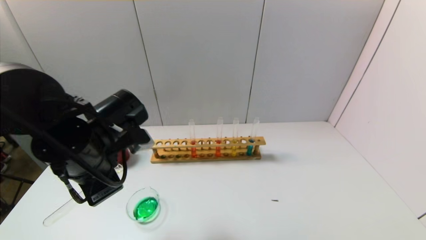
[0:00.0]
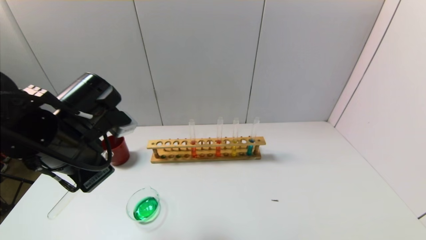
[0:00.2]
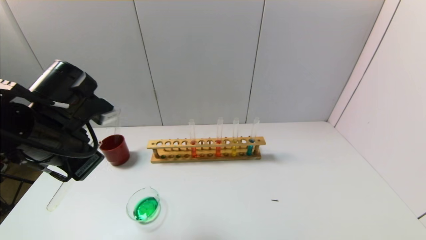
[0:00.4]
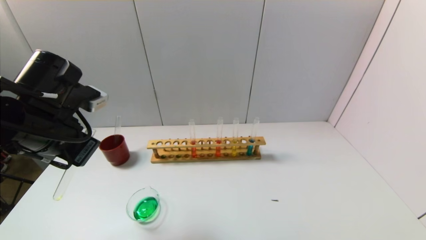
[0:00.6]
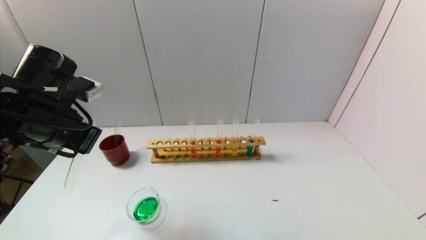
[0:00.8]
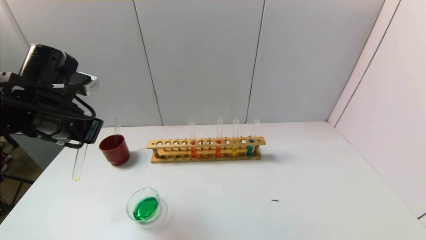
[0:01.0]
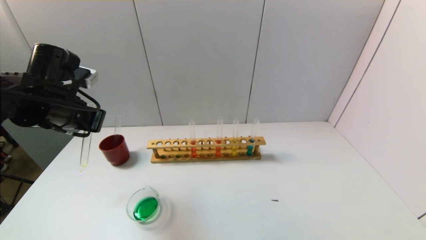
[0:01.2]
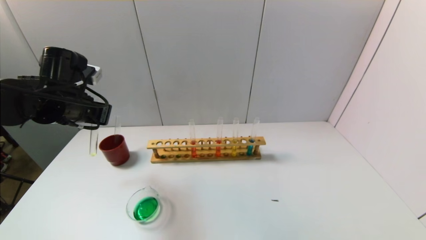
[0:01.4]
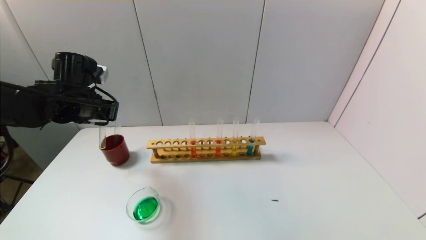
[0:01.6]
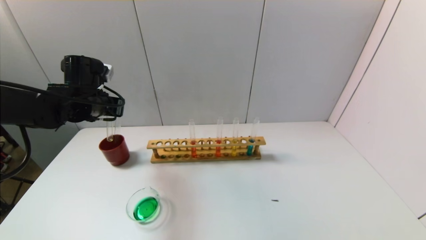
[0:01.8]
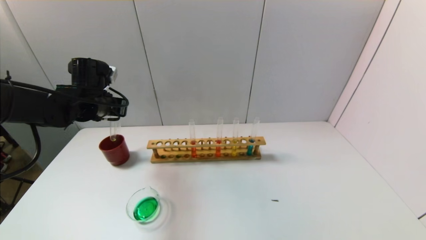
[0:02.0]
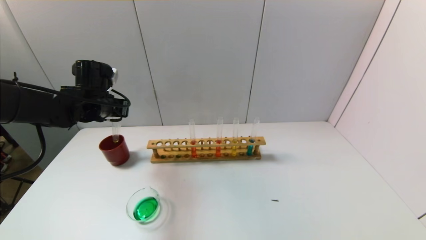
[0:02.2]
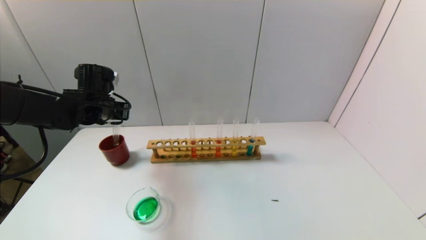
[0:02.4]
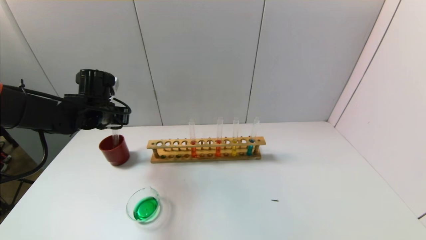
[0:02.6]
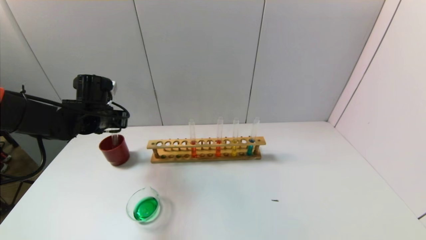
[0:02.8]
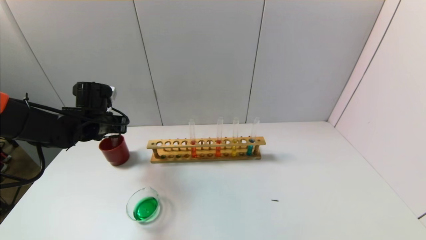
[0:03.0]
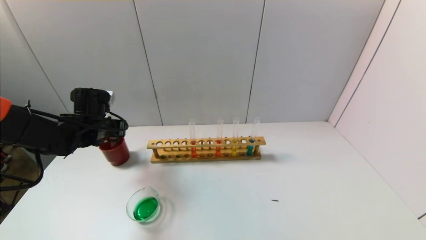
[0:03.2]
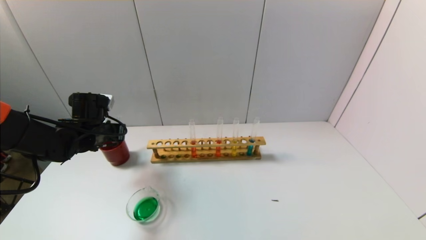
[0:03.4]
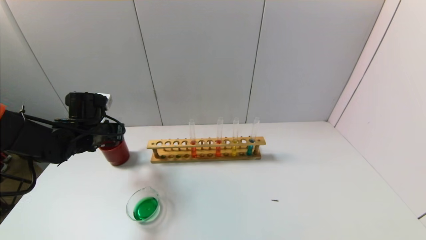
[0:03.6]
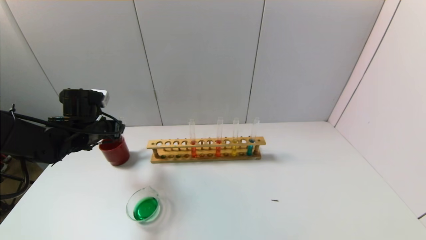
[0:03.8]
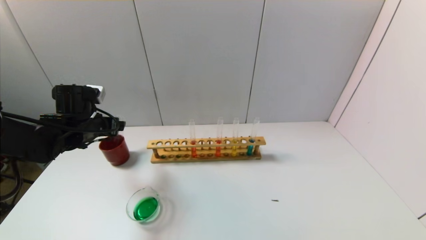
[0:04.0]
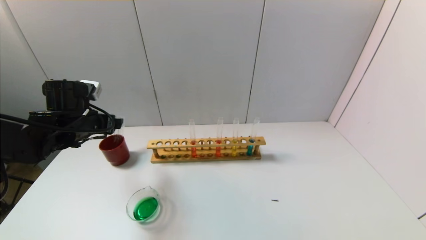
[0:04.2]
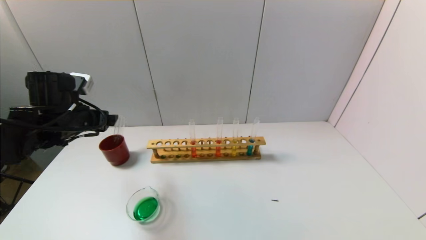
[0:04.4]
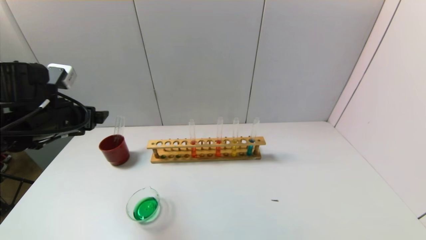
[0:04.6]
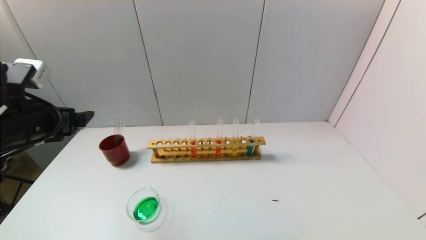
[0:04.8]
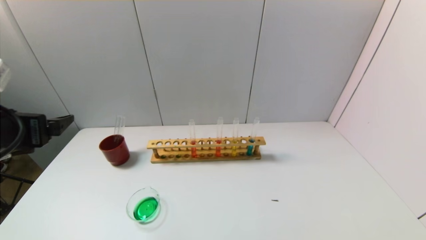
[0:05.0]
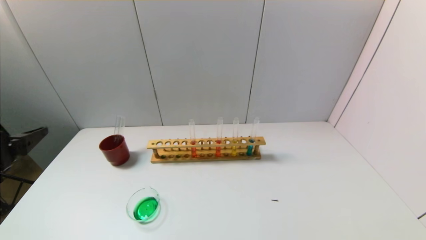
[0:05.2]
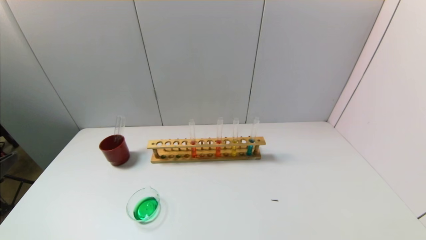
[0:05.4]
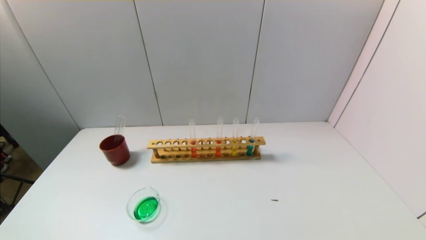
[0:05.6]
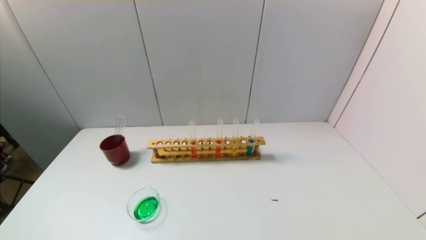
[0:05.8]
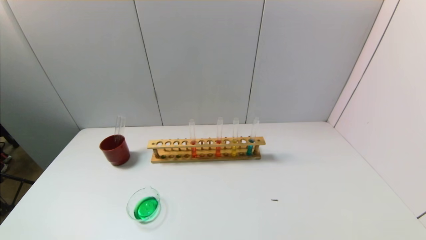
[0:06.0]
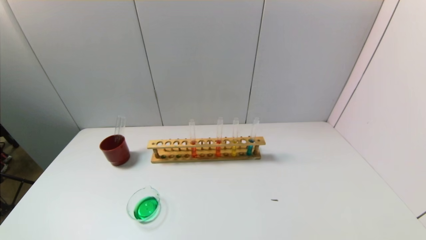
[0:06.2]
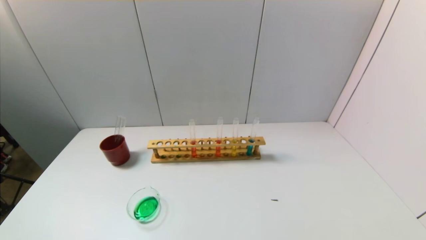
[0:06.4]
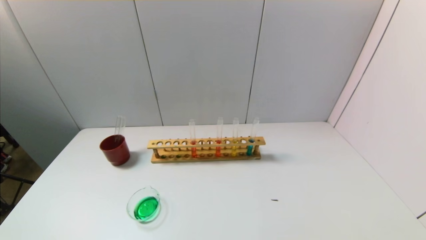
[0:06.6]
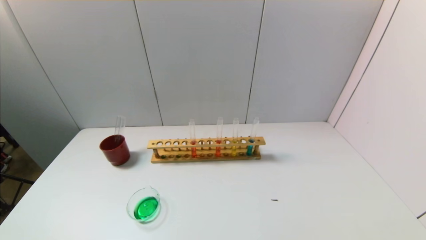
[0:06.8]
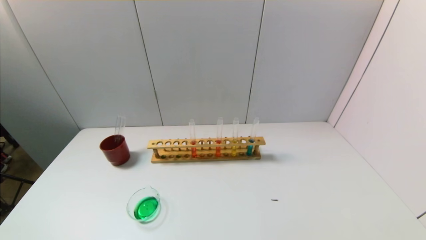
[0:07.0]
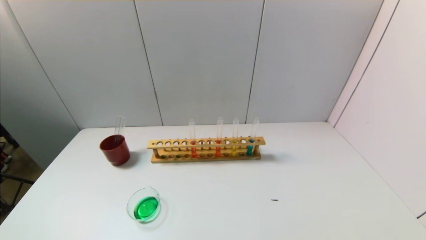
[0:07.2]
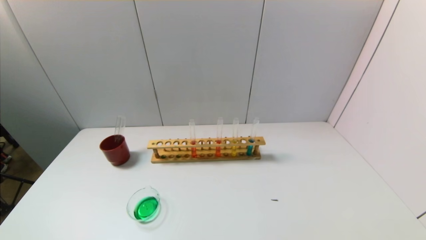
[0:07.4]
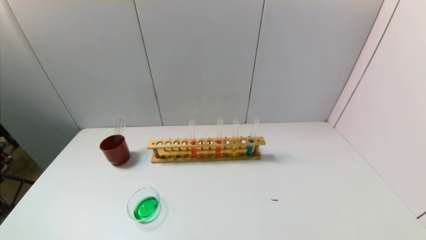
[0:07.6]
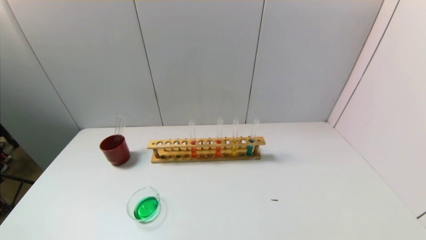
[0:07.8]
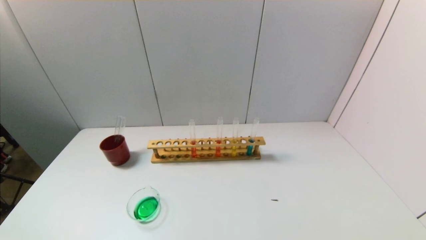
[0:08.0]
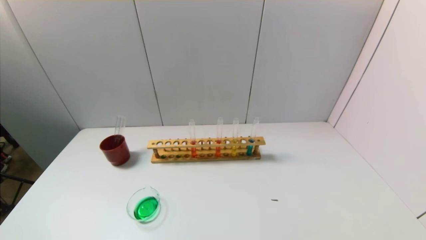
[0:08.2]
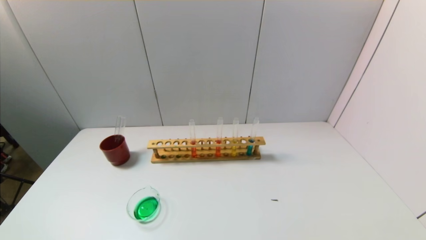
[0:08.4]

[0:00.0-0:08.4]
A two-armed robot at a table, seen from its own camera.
Task of the whole recording: pick up the test tube with yellow pigment and the test tube with blue pigment by grippers and pour them into the beaker.
Step, 0:00.0 to 0:04.2: Place the test tube into the brown cup with the left gripper.
0:00.0 to 0:01.4: The left gripper is displaced forward and to the left by approximately 15 cm.
0:01.4 to 0:02.8: The left gripper goes roughly 10 cm downward and forward.
0:02.8 to 0:04.2: The left gripper shifts by some 5 cm, and opens up.
0:04.2 to 0:05.6: The left gripper shifts about 30 cm backward.
0:07.0 to 0:08.4: Both grippers stay about where they are.
